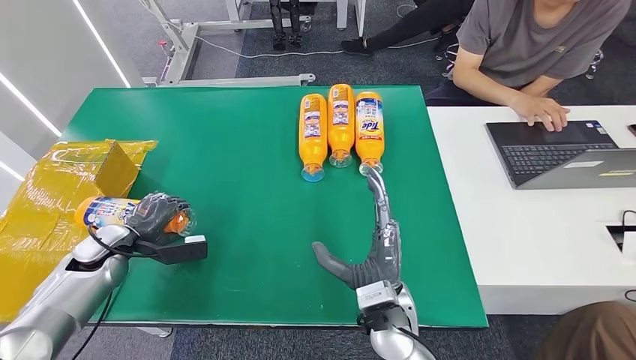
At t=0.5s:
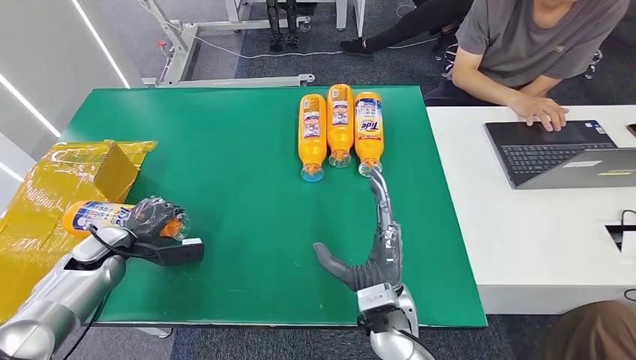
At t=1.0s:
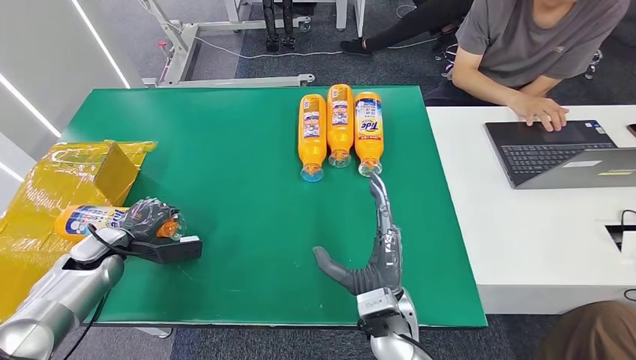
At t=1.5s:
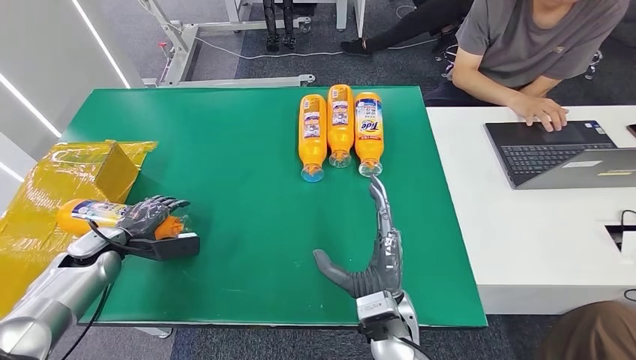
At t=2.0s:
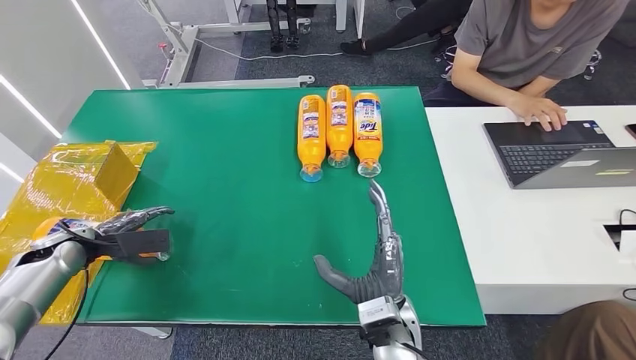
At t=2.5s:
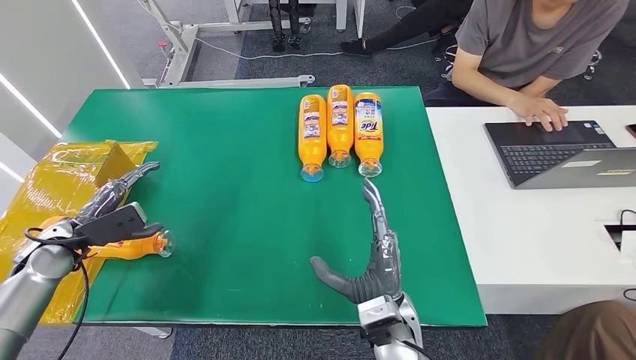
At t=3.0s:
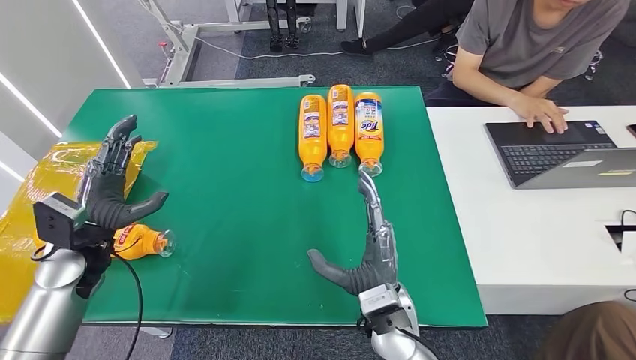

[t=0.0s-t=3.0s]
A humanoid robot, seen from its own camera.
Step, t=0.0s to t=3.0s: Turn the bottle to the front side.
t=0.0s to t=1.5s: The hands make only small movements.
t=1.5s to t=3.0s: The left hand is displaced upward and to the right by approximately 10 cm.

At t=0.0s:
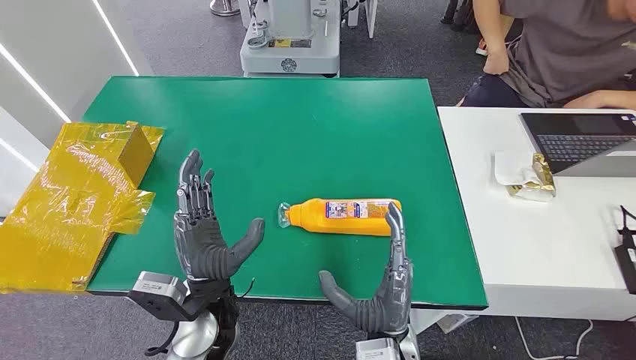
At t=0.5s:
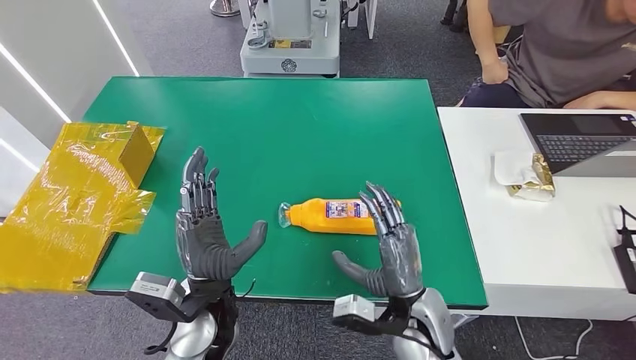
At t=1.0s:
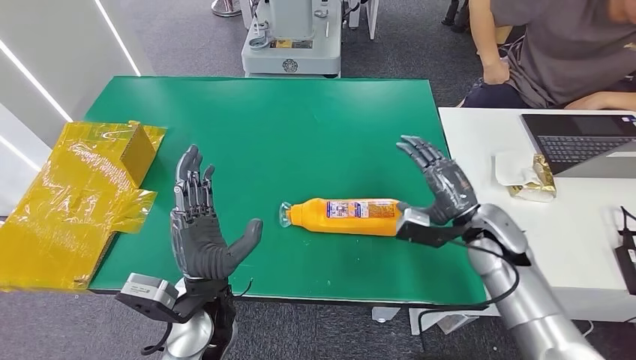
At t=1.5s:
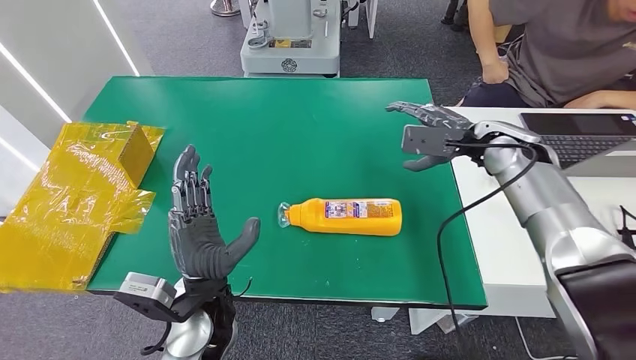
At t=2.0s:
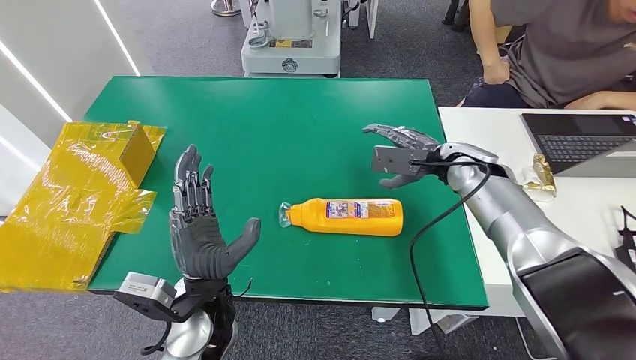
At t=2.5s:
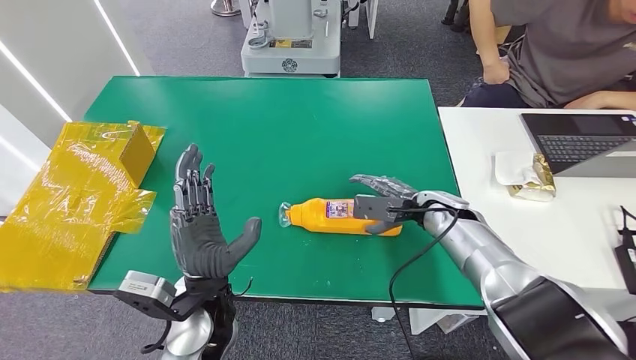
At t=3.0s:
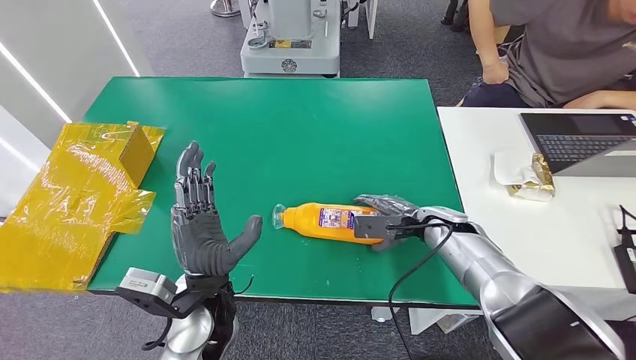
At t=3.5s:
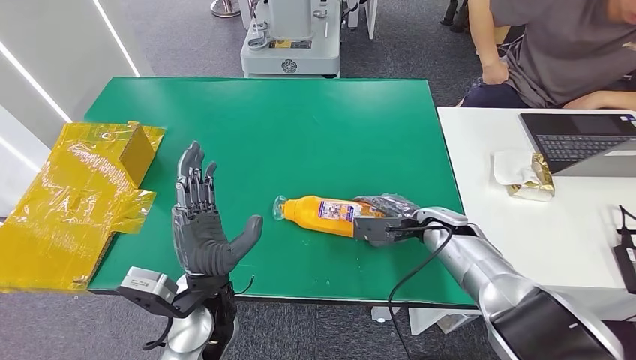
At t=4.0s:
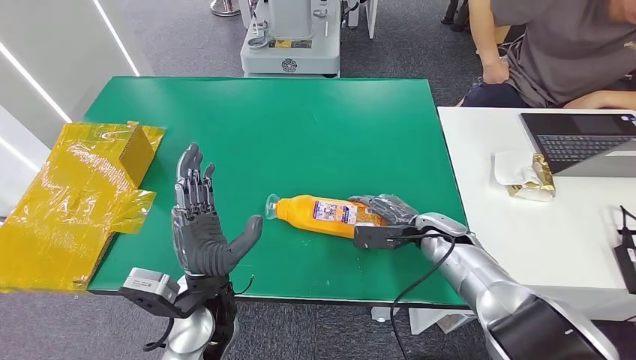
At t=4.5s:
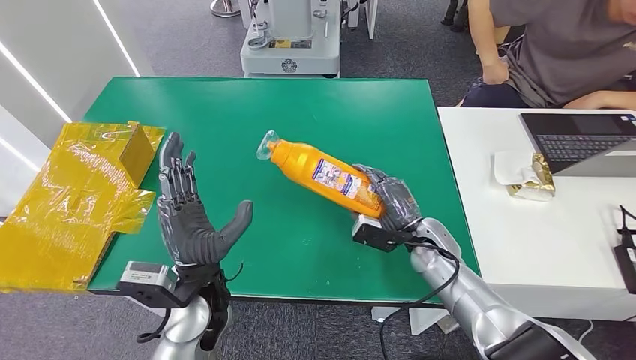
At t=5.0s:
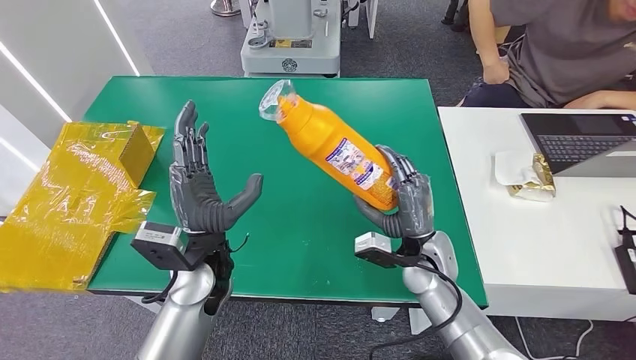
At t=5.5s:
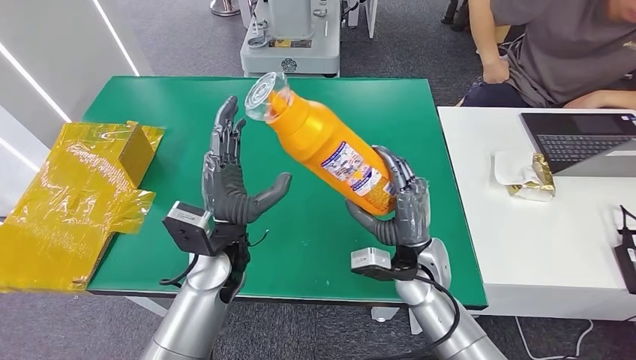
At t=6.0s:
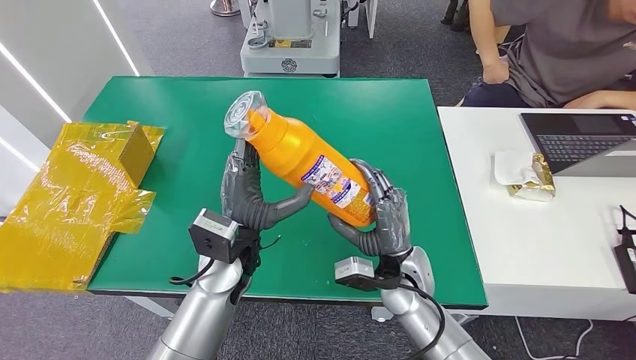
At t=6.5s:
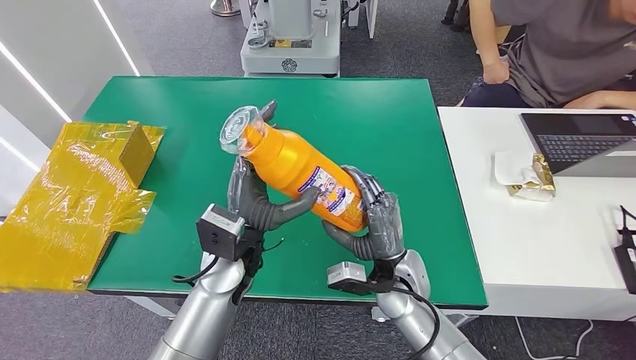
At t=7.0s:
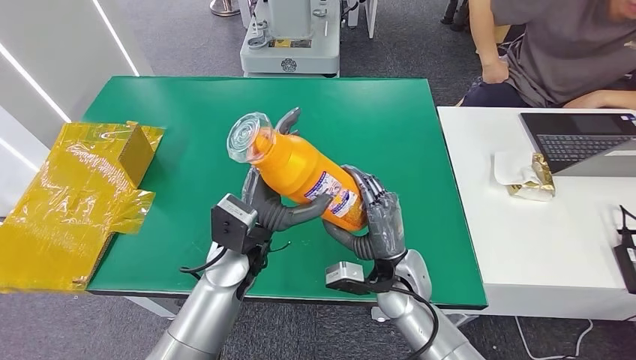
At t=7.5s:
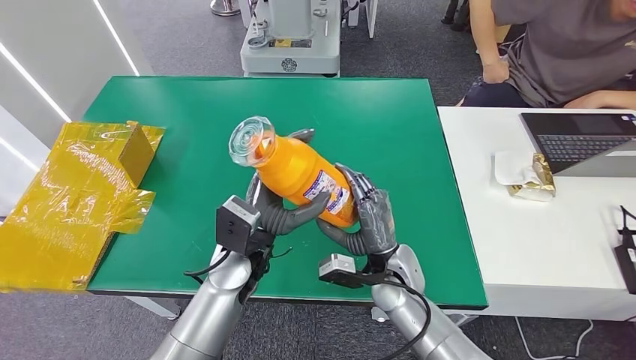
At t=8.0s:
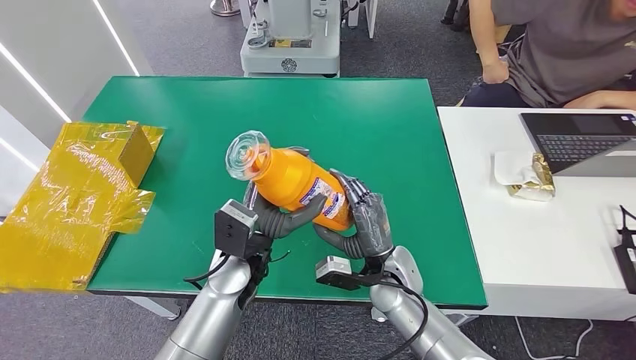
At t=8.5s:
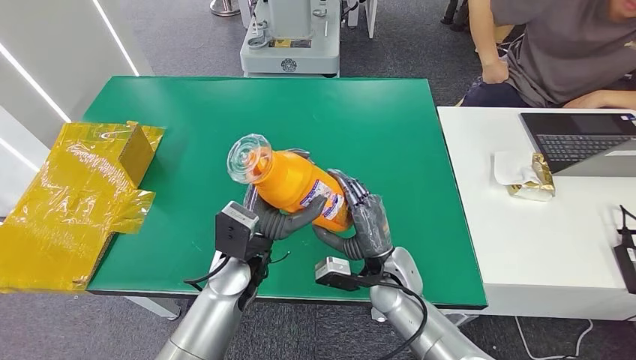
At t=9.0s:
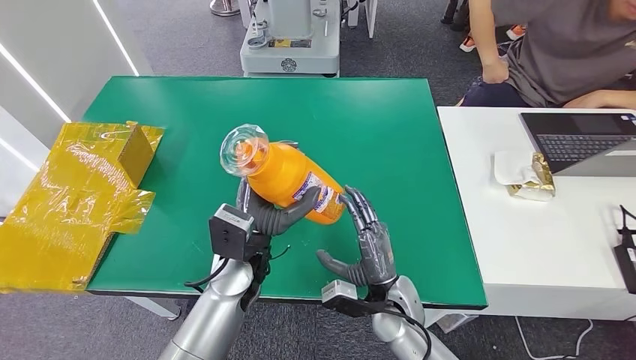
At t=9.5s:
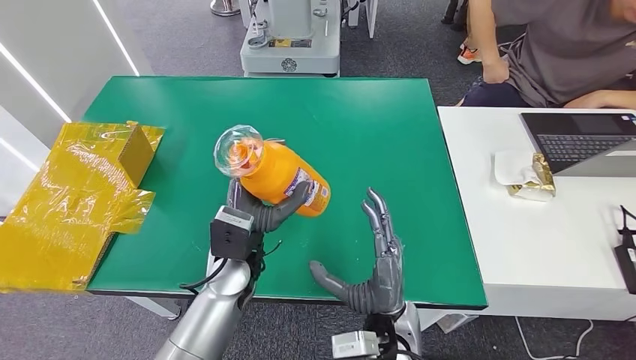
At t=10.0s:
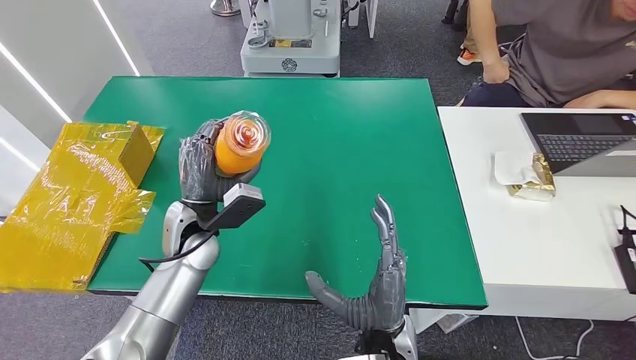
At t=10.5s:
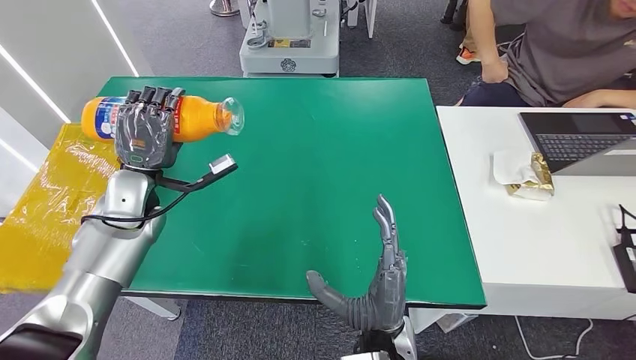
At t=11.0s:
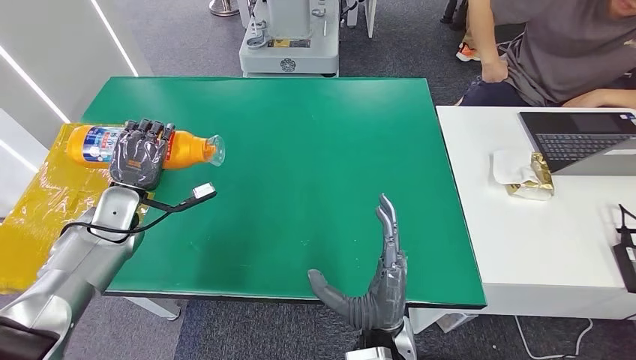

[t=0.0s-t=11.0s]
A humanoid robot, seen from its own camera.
Step, t=0.0s to t=5.5s: Pick up the bottle from the table.
t=2.0s to t=3.5s: The right hand heads downward and backward, covering about 15 cm.
t=3.5s to t=5.5s: The right hand heads backward and to the left, covering approximately 10 cm. The left hand travels forward by roughly 5 cm.
t=5.5s to t=7.5s: The hands make only small movements.
t=7.5s to t=9.0s: The right hand shifts by roughly 5 cm.
t=9.0s to t=11.0s: The left hand travels to the left by roughly 30 cm. Meanwhile the right hand shifts approximately 10 cm backward, upward and to the left.

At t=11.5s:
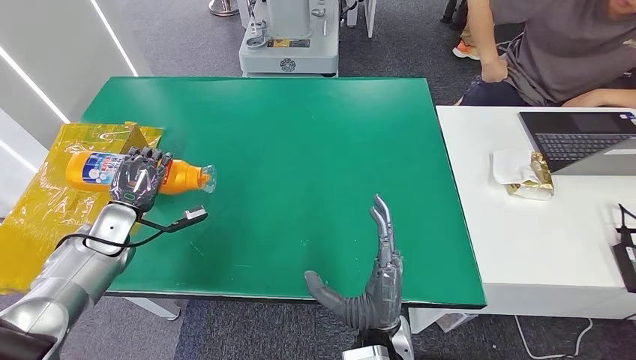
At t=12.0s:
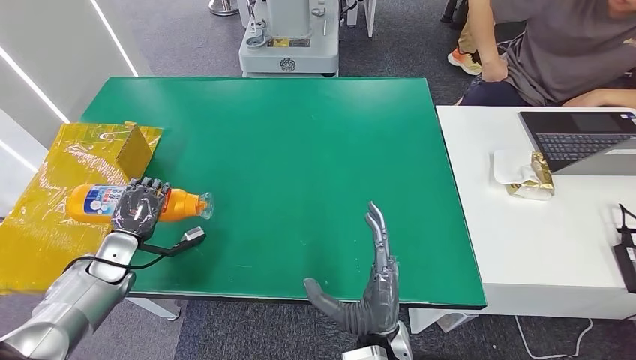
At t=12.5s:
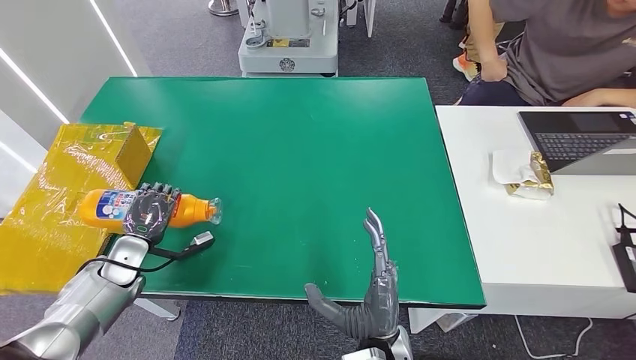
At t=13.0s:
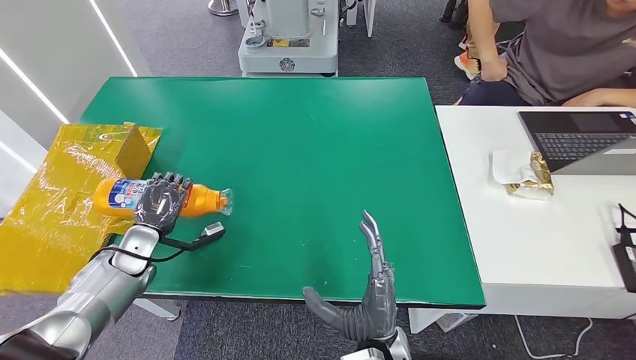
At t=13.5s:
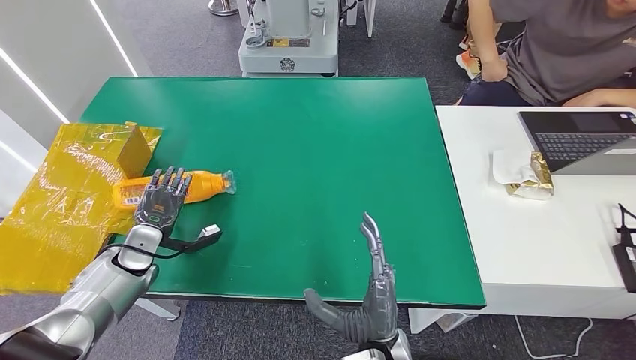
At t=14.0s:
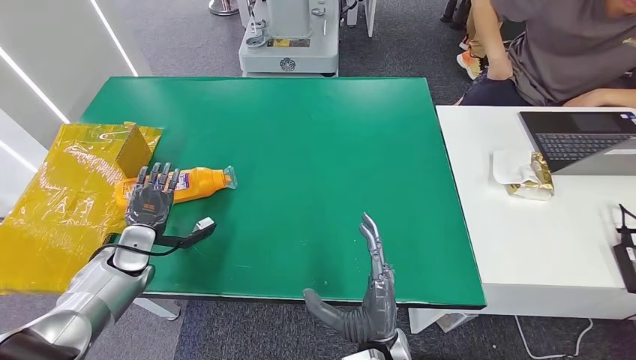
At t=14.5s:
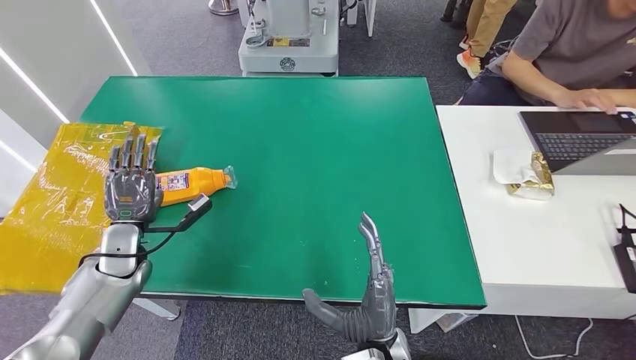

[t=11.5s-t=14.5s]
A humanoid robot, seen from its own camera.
Step, t=11.5s to t=14.5s: Turn the bottle to the front side.
t=11.5s to t=13.0s: The left hand ends up about 5 cm from where it was.
